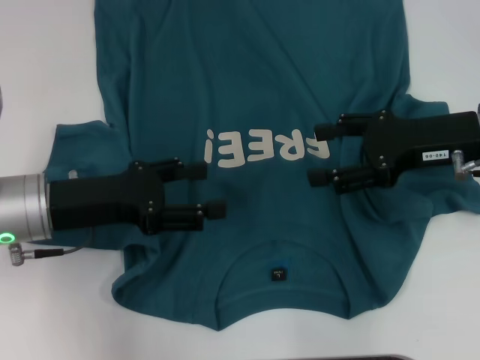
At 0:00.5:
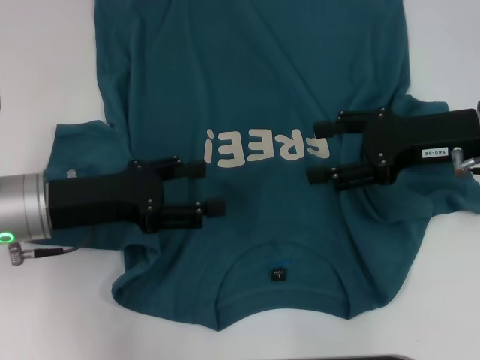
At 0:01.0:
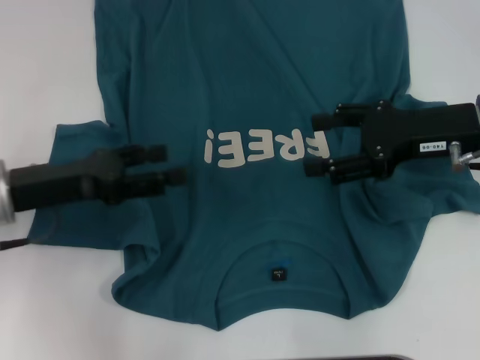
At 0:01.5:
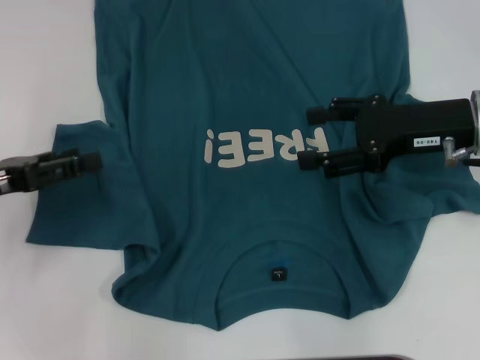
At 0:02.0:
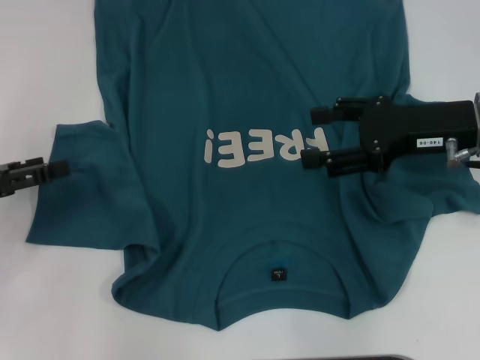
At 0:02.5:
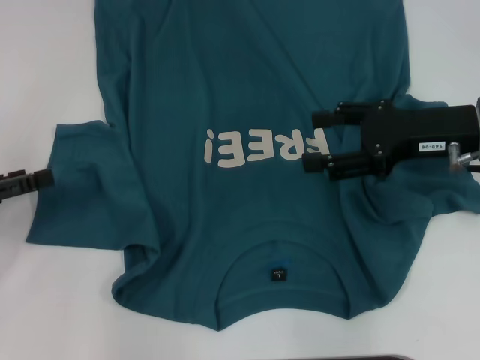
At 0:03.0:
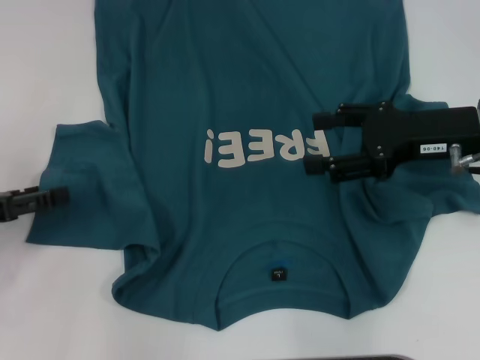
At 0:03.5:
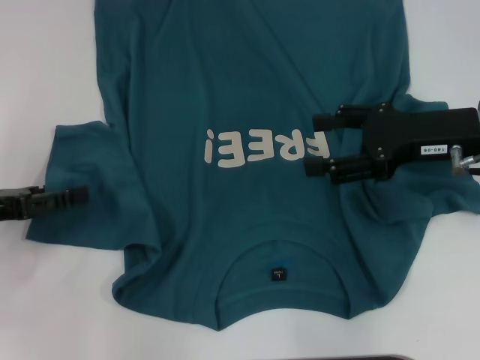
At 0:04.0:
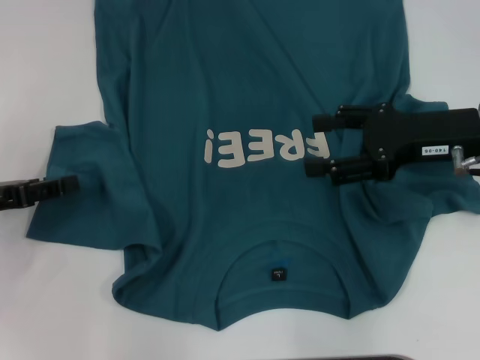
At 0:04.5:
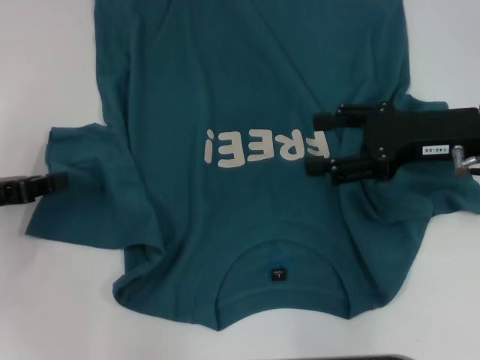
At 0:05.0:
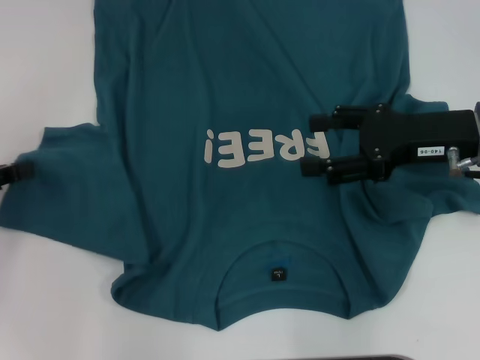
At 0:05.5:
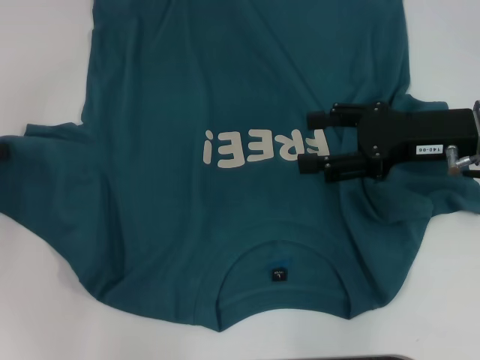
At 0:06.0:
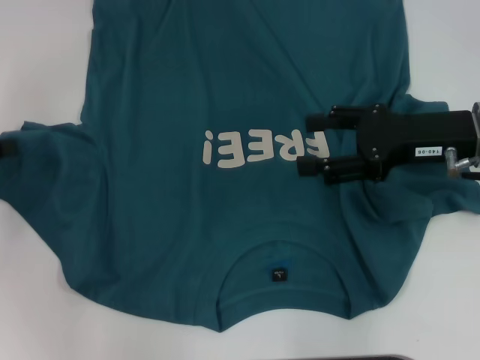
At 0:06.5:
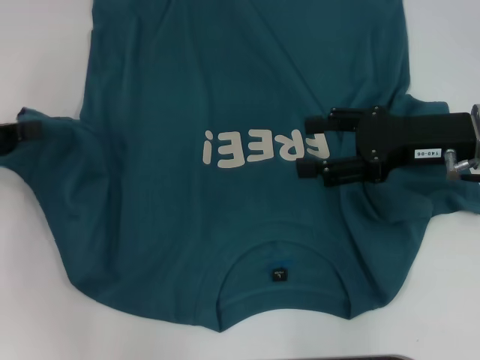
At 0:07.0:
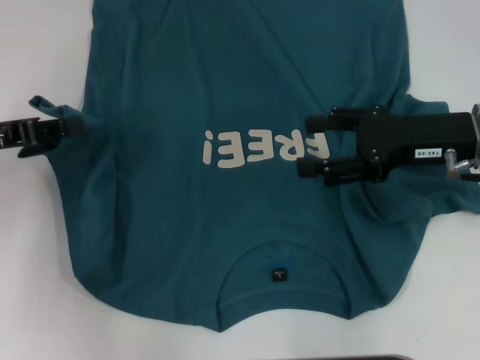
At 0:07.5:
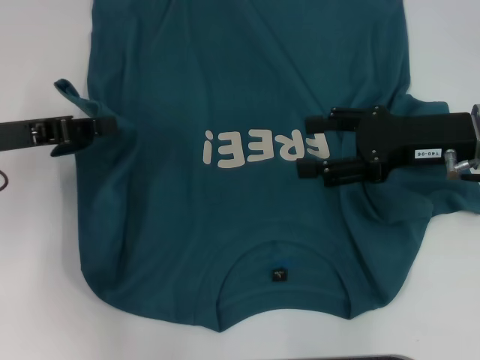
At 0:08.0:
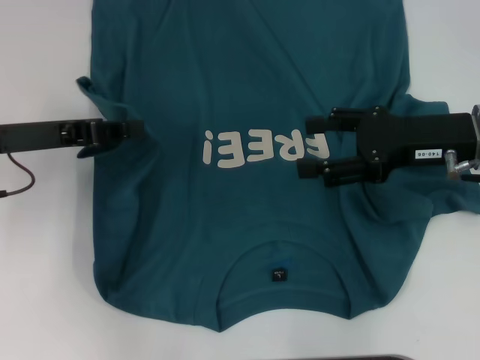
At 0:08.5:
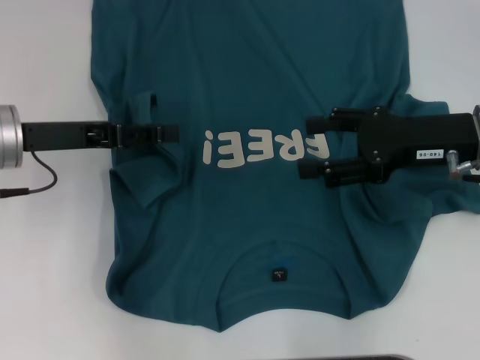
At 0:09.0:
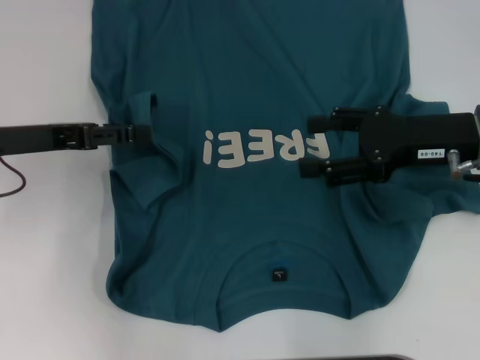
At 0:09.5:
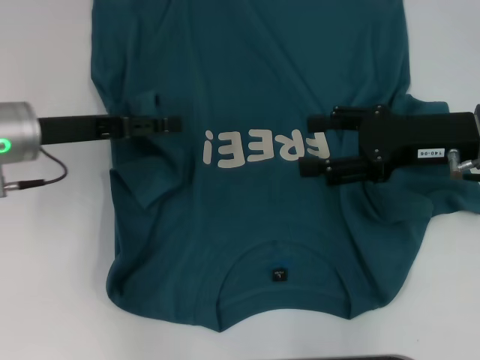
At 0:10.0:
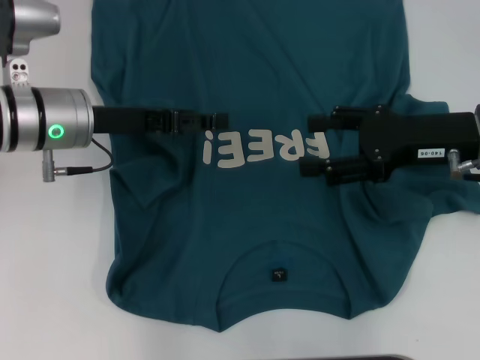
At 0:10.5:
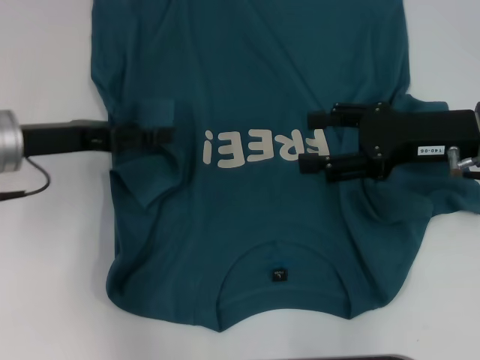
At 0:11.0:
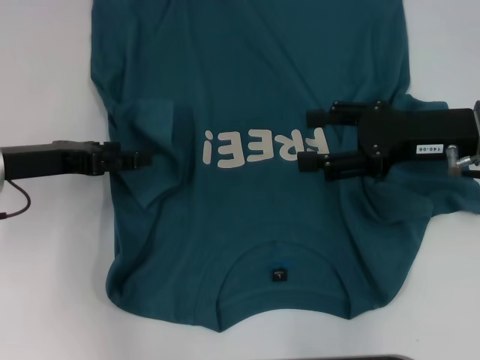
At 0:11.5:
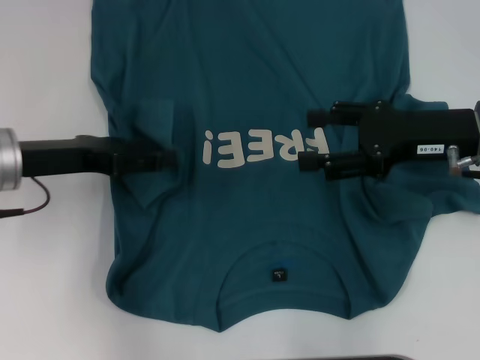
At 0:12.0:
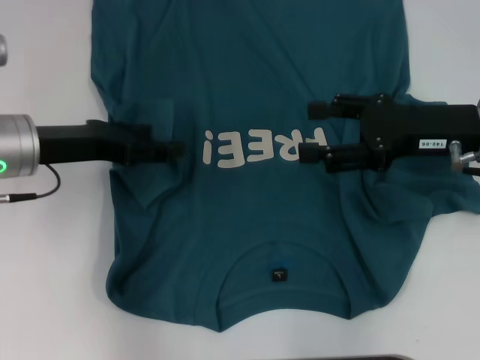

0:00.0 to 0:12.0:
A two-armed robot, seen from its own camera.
0:00.0 to 0:02.0: The left gripper heads to the left, covering approximately 15 cm.
0:02.0 to 0:04.0: There are only small adjustments of the grippers.
0:04.0 to 0:06.0: The left gripper shifts by approximately 5 cm, and closes up.
0:06.0 to 0:08.0: The left gripper shifts about 10 cm to the right.
0:08.0 to 0:10.0: The left gripper shifts some 5 cm to the right, and opens.

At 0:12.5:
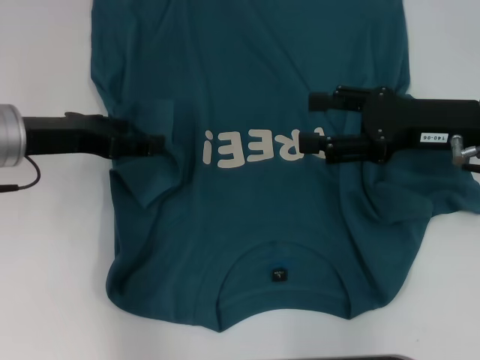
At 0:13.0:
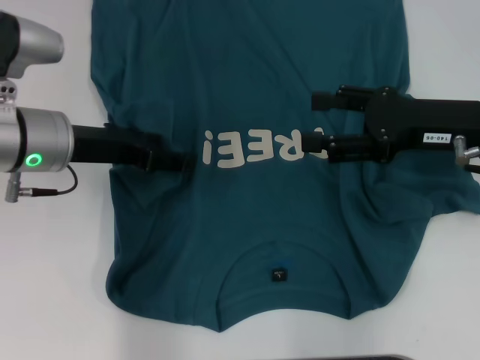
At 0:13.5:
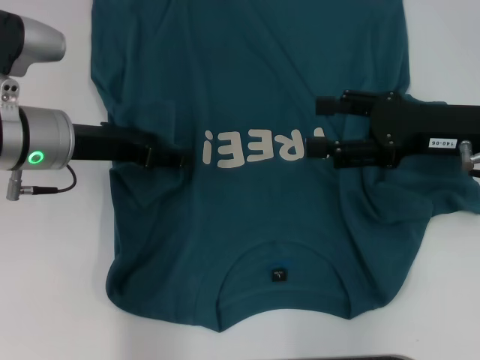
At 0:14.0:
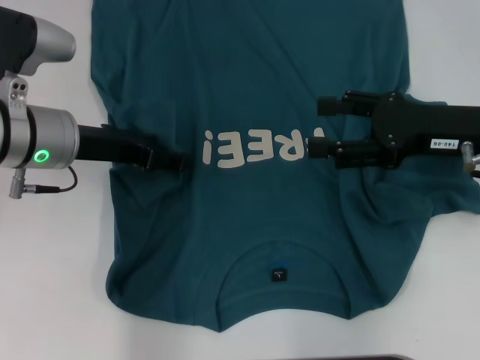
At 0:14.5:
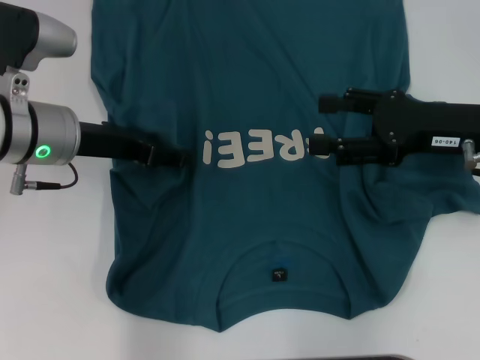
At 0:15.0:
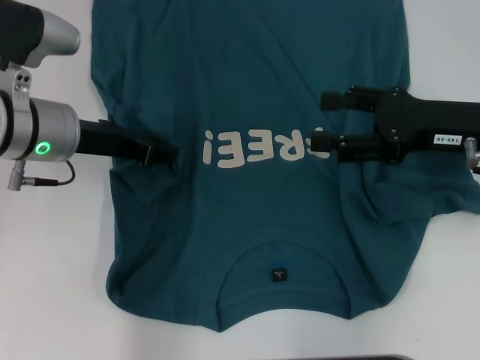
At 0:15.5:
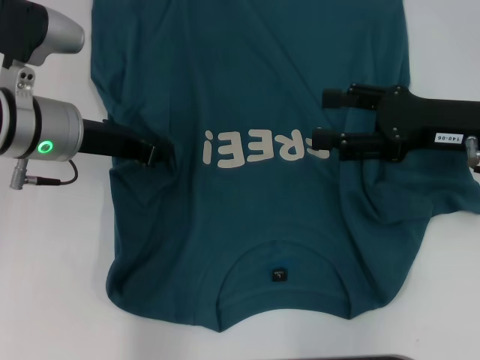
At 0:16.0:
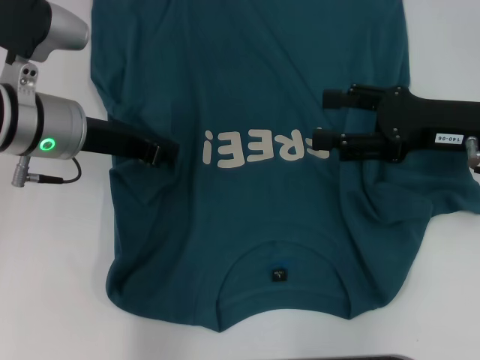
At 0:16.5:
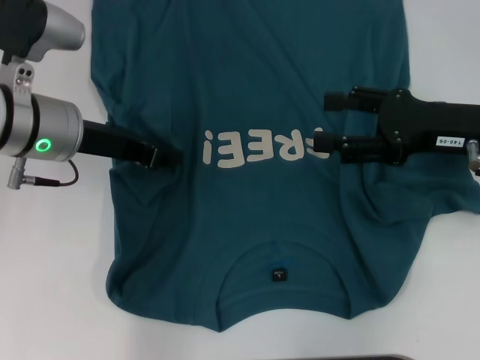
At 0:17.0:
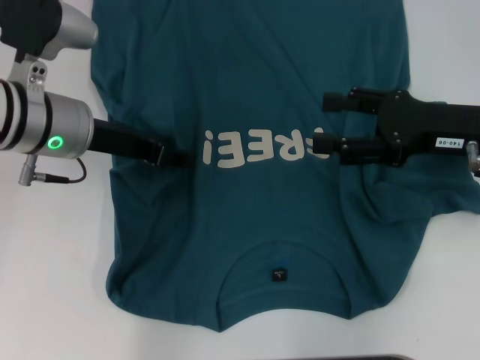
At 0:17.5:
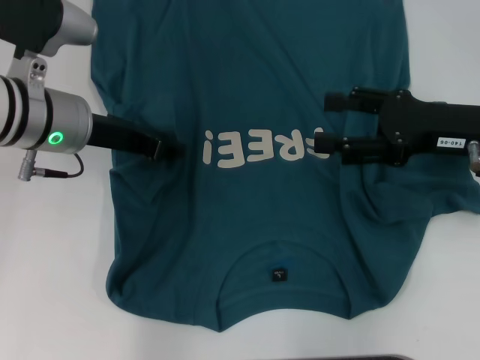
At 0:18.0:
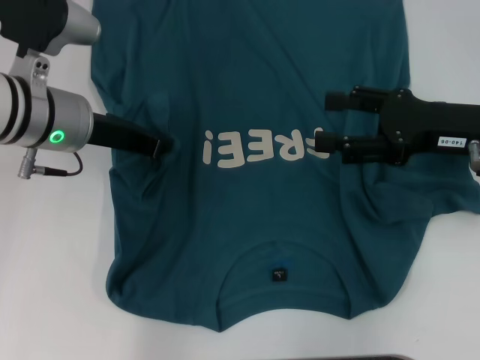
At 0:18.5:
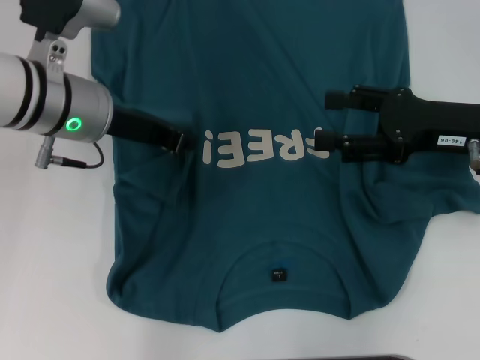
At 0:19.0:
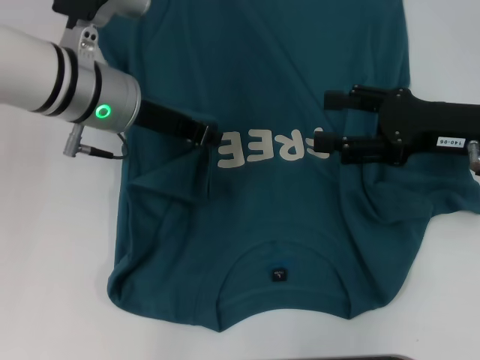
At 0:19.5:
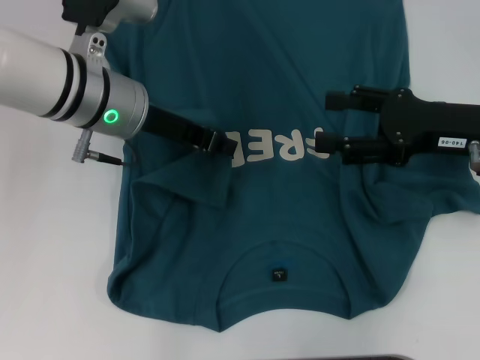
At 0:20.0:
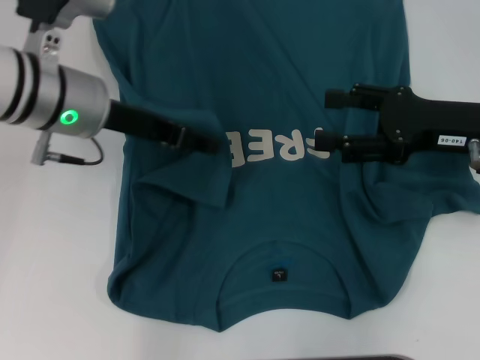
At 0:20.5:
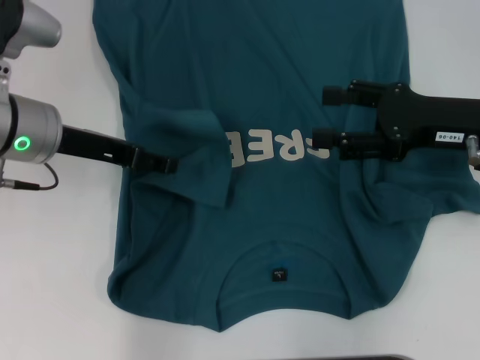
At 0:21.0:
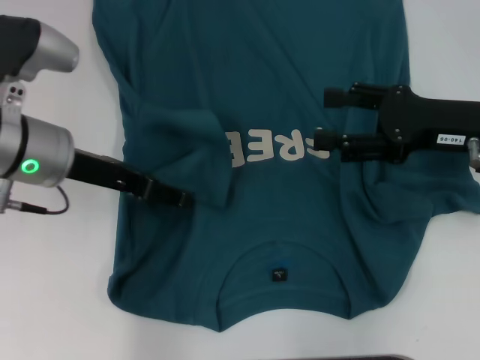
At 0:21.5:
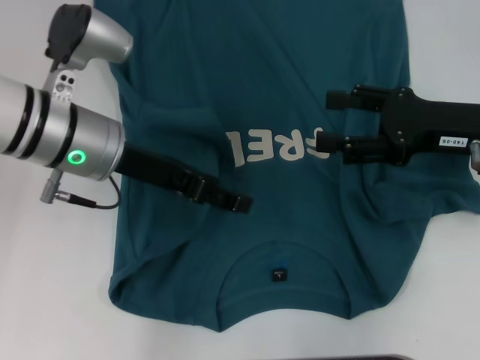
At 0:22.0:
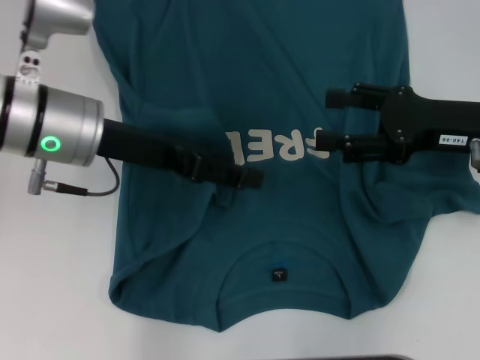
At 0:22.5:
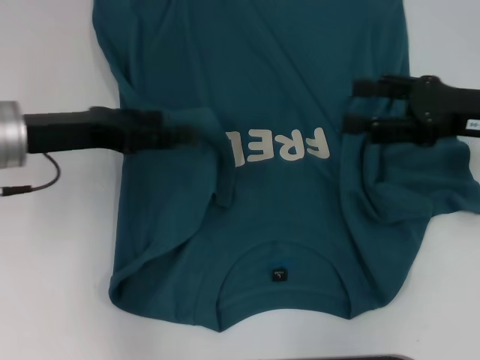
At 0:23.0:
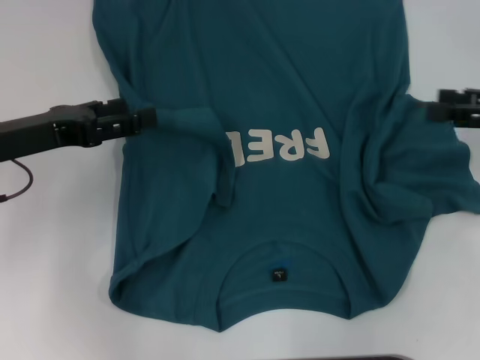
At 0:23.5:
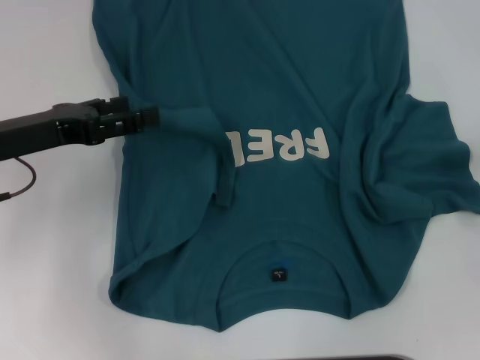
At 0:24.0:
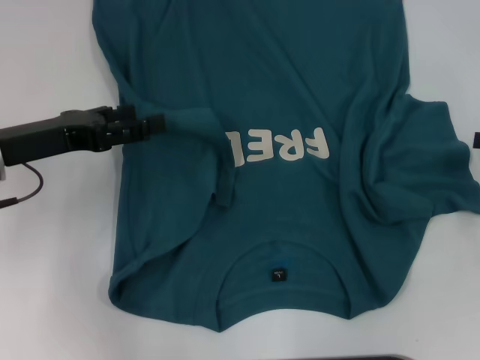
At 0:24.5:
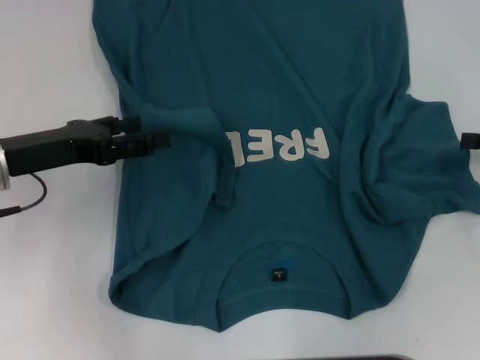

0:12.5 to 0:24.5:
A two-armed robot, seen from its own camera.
Step, 0:12.5 to 0:21.5: Fold the bottom left sleeve with your left hand.
0:12.5 to 0:14.5: The grippers stay close to where they were, moving slightly.
0:14.5 to 0:16.5: The left gripper closes up.
0:16.5 to 0:18.5: The left gripper opens, then closes again.
0:18.5 to 0:20.5: The left gripper opens up.
0:22.5 to 0:24.5: The right gripper is displaced to the right by some 10 cm.

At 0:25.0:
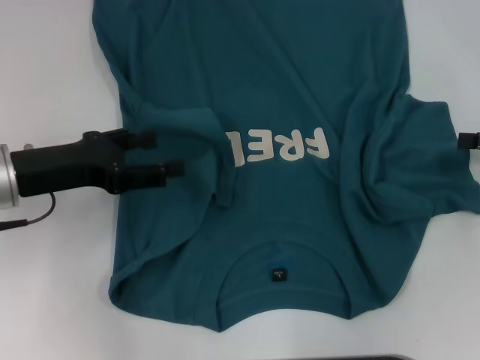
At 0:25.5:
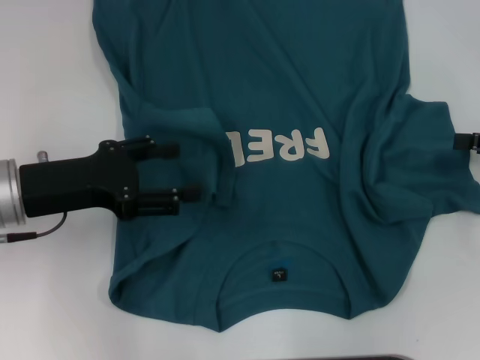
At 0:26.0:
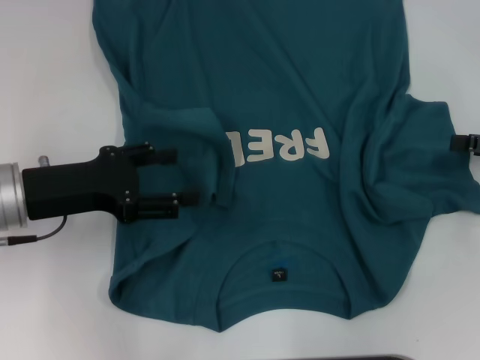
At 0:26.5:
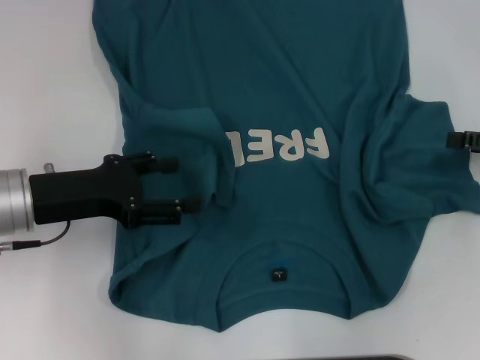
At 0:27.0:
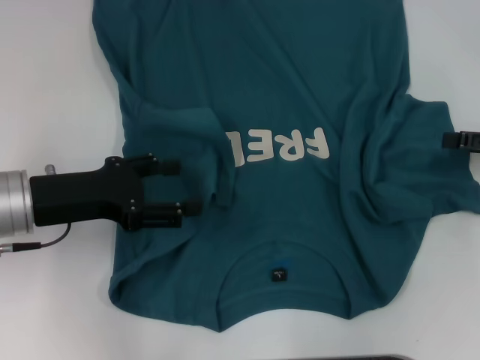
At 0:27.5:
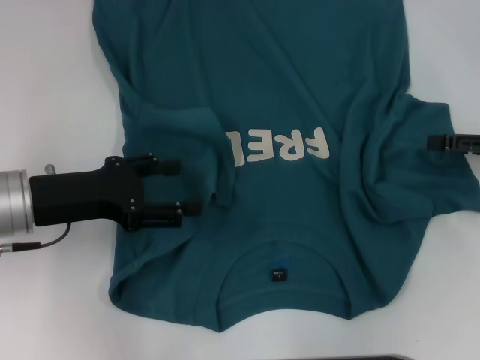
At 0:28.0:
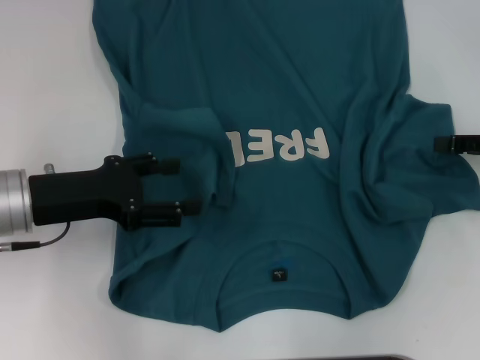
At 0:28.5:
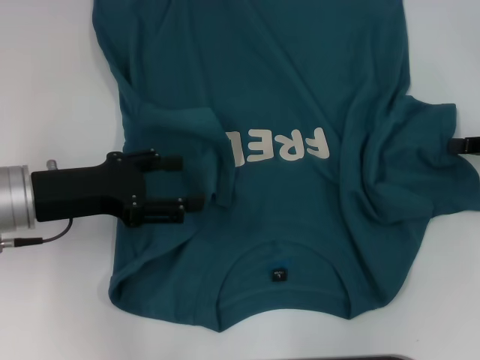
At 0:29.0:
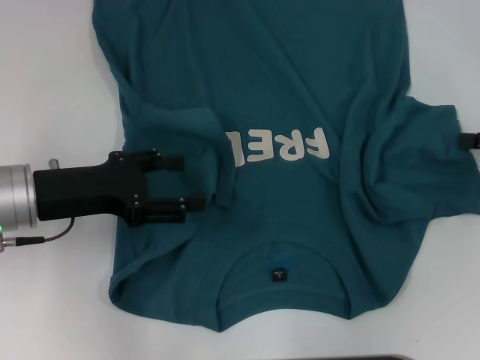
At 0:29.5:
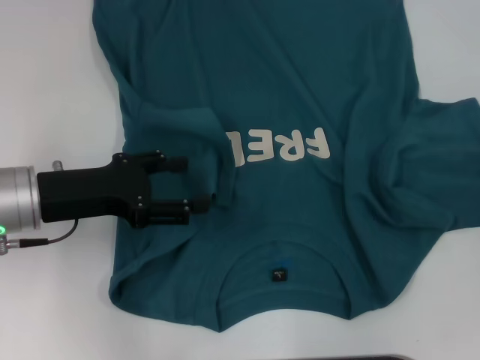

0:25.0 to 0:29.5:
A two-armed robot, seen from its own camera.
0:25.0 to 0:27.0: There are only small adjustments of the grippers.
0:27.0 to 0:29.5: The right gripper closes.
